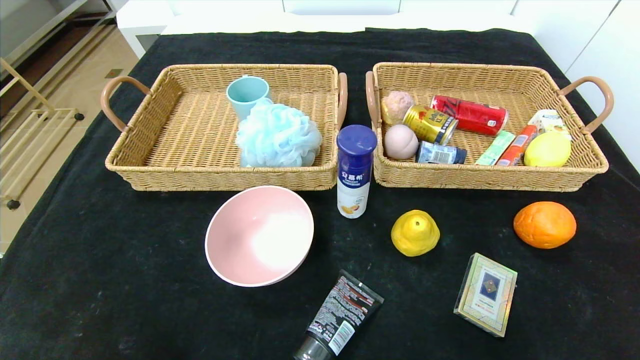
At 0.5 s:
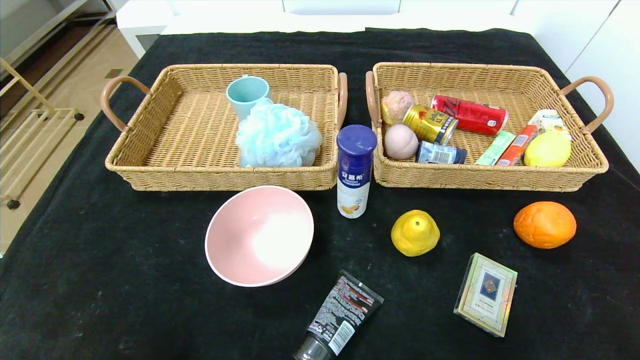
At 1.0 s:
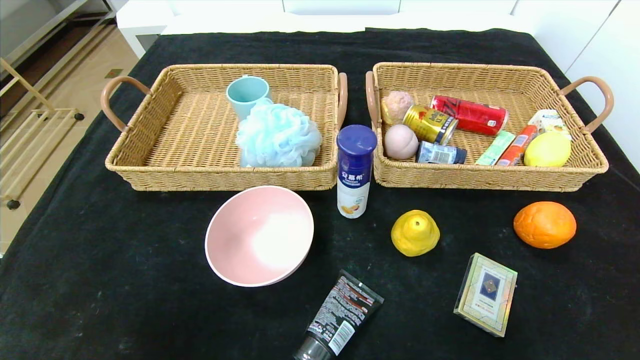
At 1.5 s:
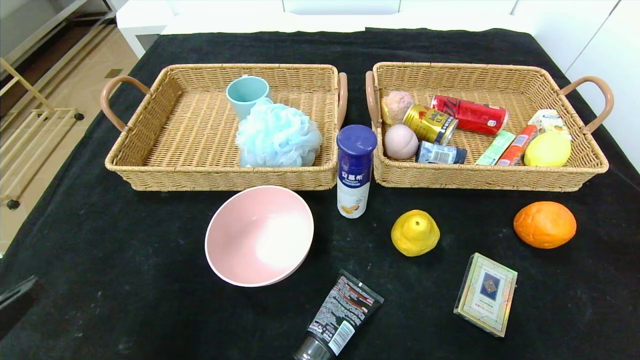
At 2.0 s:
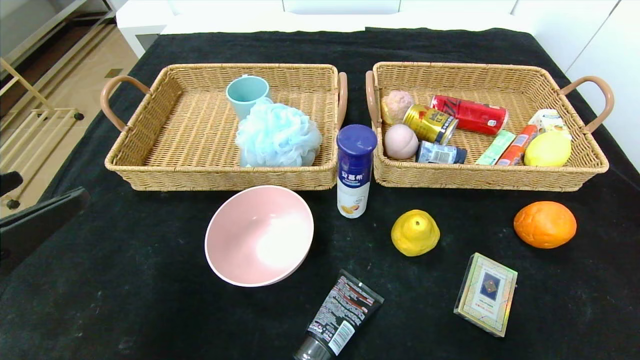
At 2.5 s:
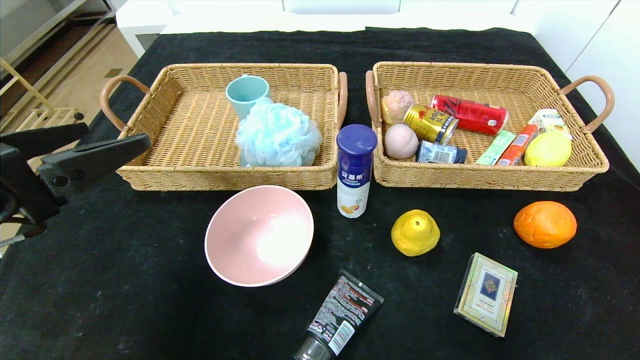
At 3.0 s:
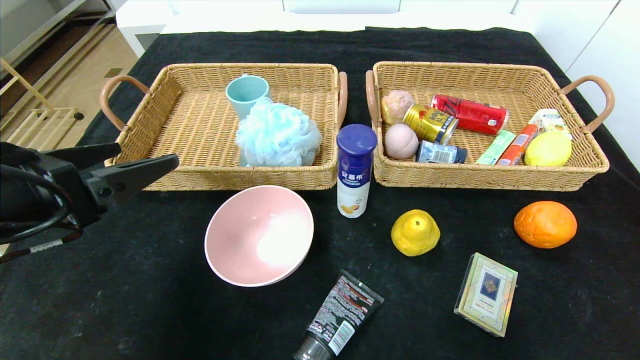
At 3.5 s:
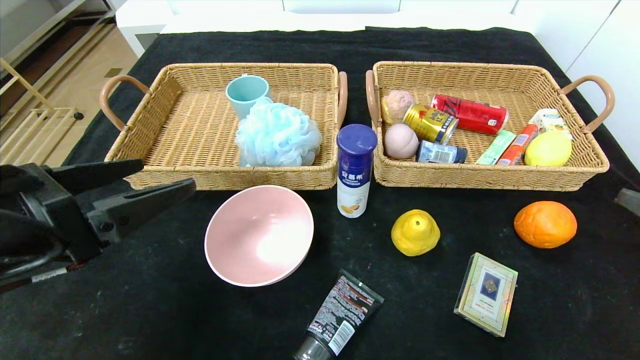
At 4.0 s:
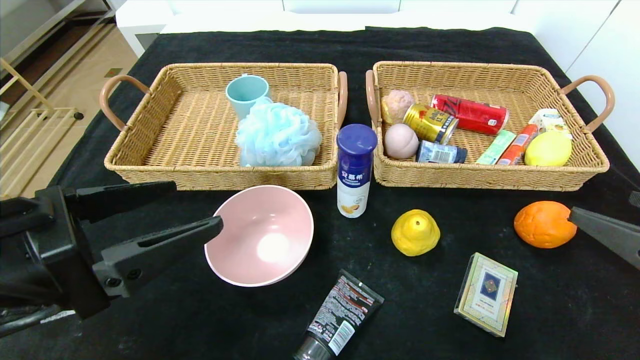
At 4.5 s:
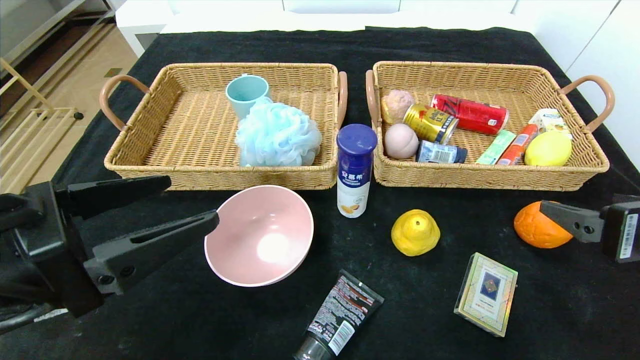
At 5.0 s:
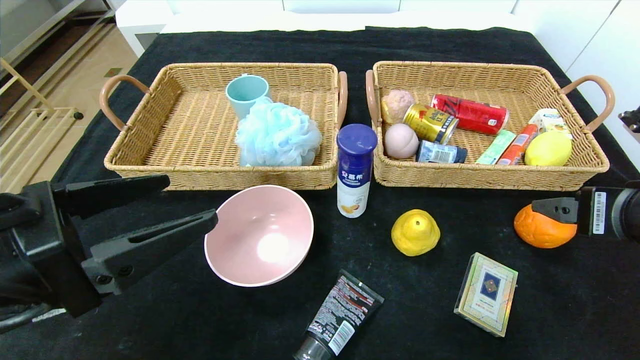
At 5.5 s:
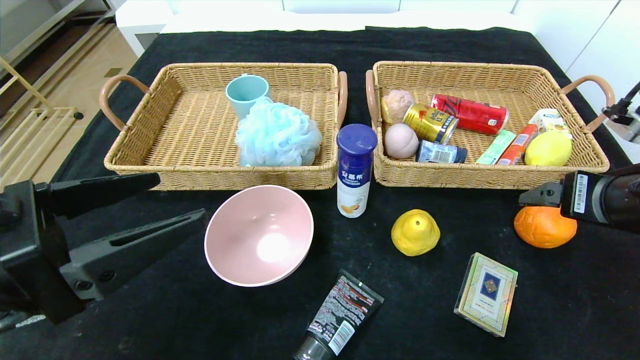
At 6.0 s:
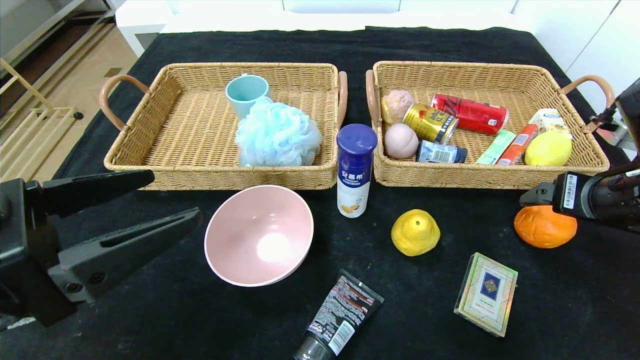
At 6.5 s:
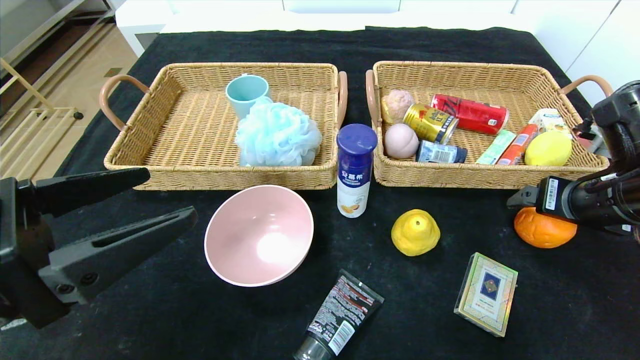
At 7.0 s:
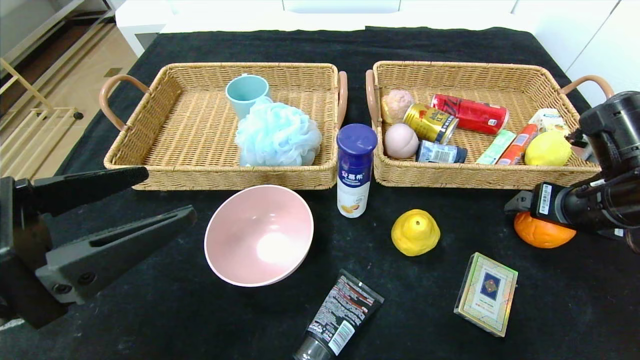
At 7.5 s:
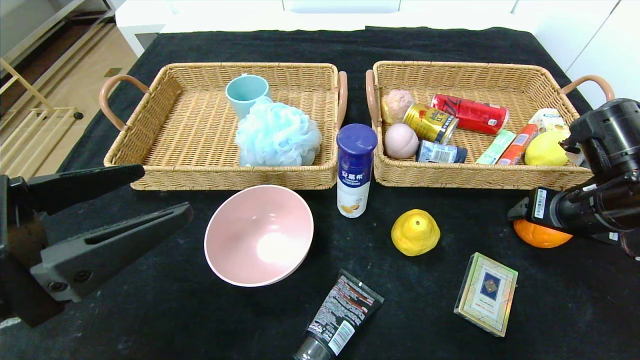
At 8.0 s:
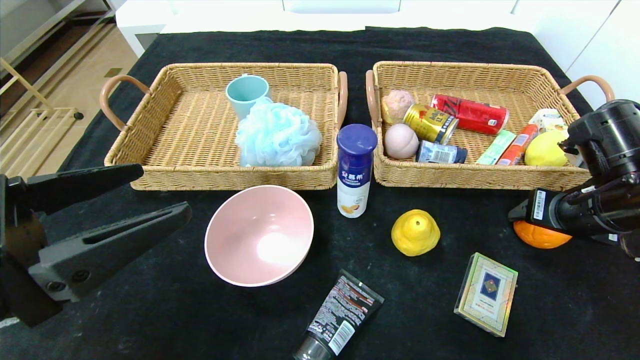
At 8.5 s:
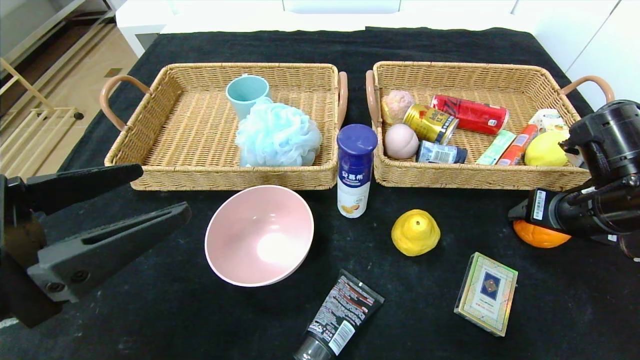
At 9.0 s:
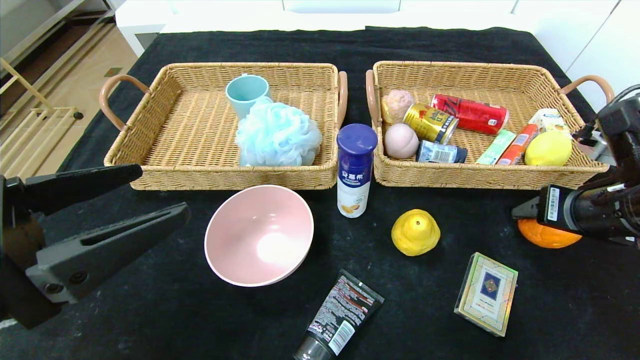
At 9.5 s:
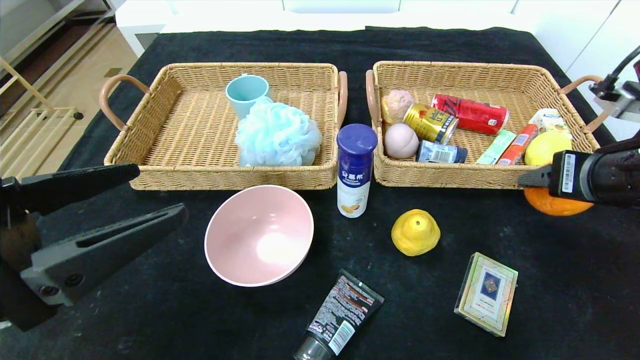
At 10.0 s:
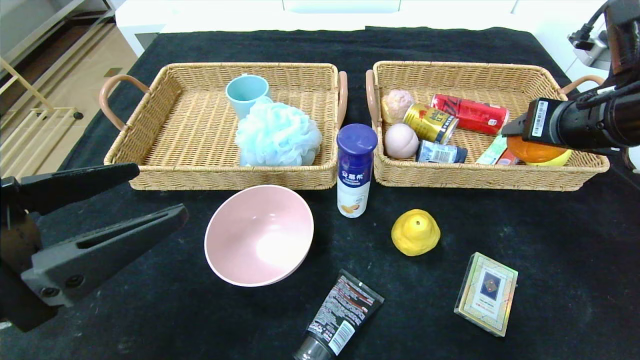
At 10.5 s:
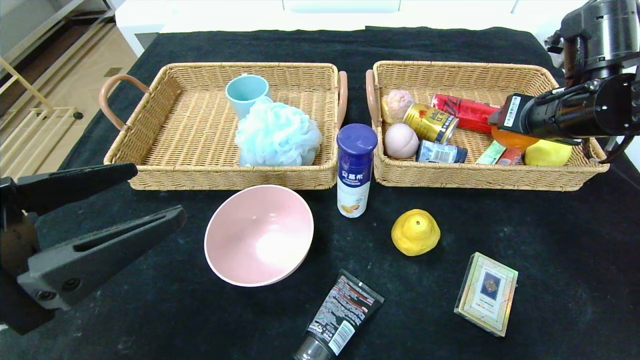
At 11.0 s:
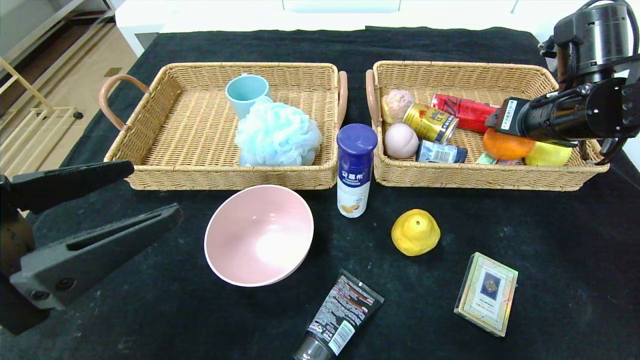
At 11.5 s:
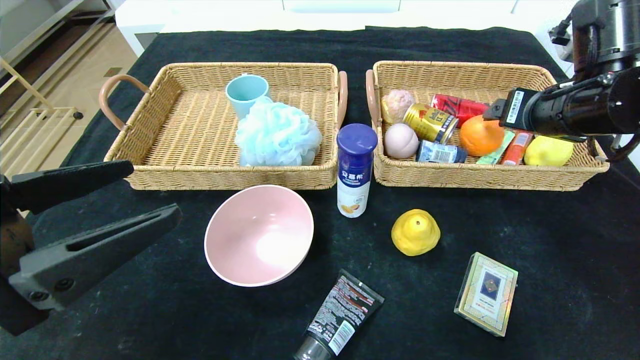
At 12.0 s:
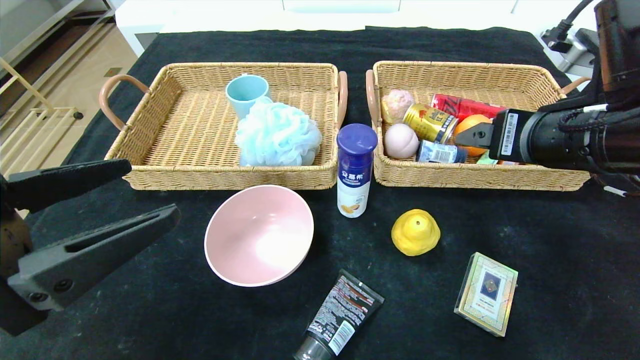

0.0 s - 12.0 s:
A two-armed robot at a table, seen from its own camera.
0.0 s - 2.0 s: Both grippers move upward and forward, about 15 cm.
2.0 s - 4.0 s: The left gripper moves to the right, about 5 cm. Meanwhile the right gripper heads to the left, covering roughly 5 cm.
4.0 s - 6.0 s: The right gripper is displaced forward by approximately 15 cm.
6.0 s - 8.0 s: The right gripper closes.
8.0 s - 10.0 s: The right gripper is displaced upward by approximately 10 cm.
10.0 s - 12.0 s: The right gripper heads to the left and backward, covering approximately 10 cm, and opens.

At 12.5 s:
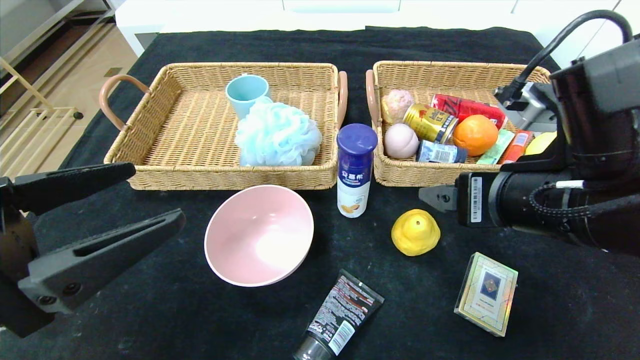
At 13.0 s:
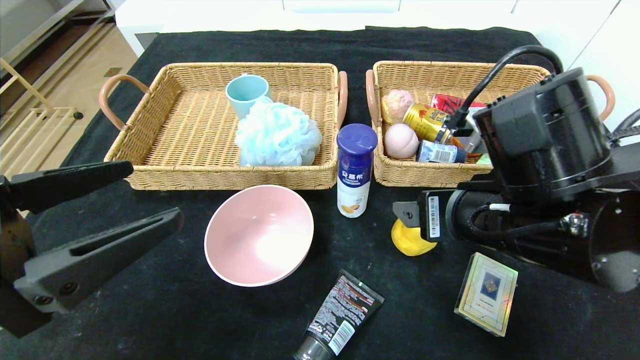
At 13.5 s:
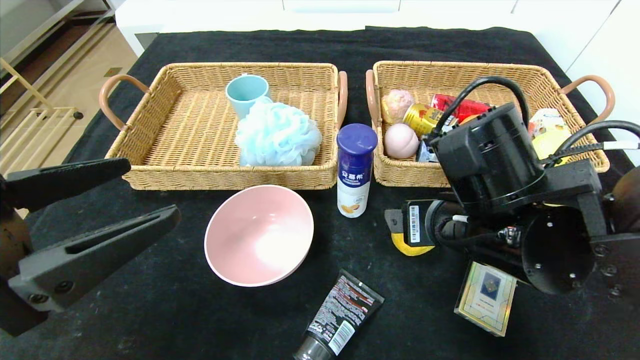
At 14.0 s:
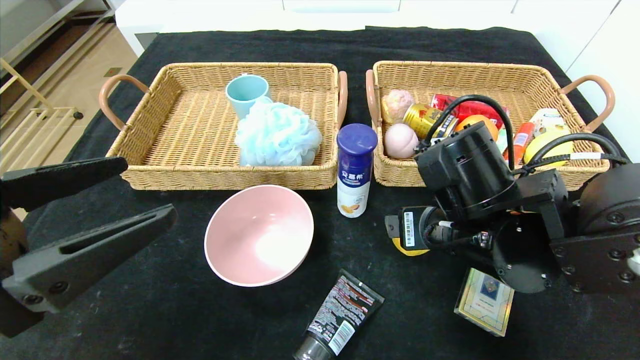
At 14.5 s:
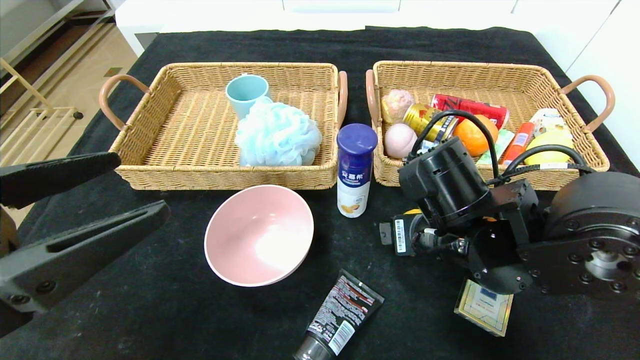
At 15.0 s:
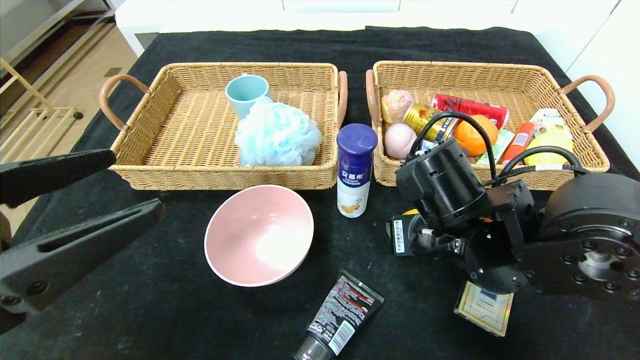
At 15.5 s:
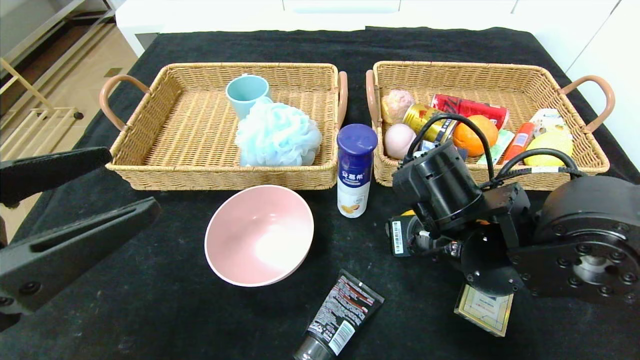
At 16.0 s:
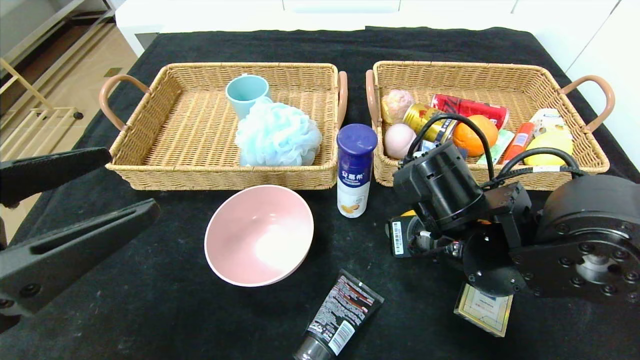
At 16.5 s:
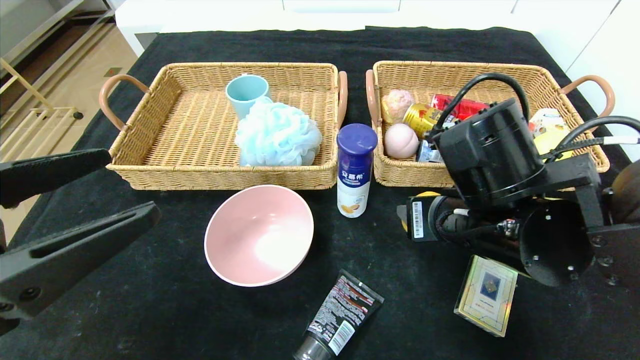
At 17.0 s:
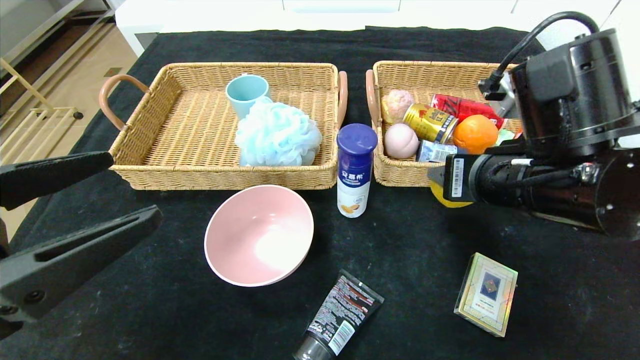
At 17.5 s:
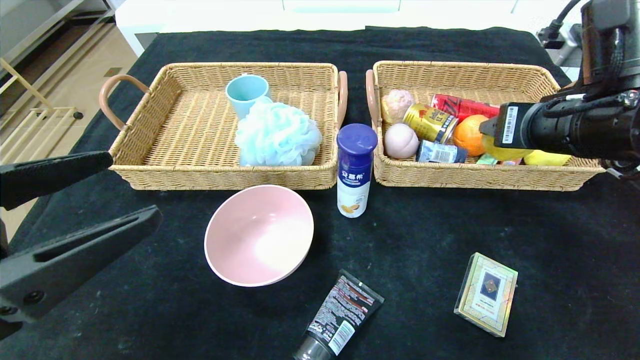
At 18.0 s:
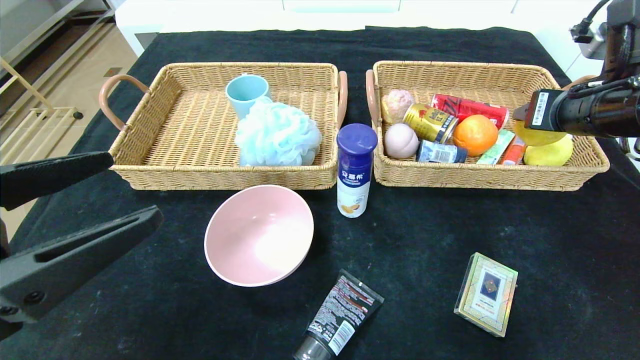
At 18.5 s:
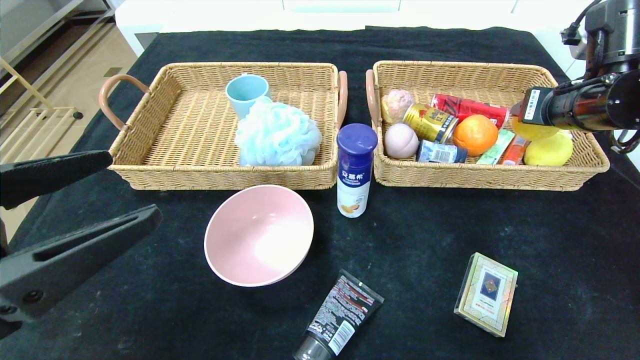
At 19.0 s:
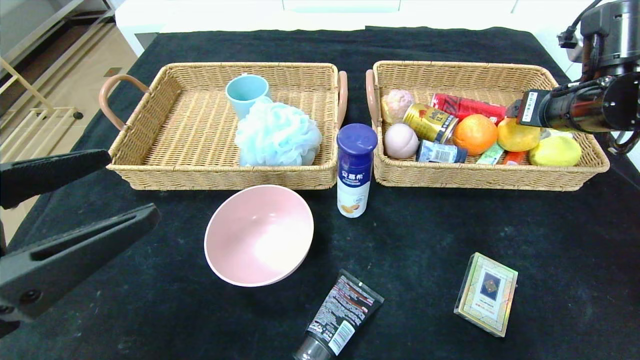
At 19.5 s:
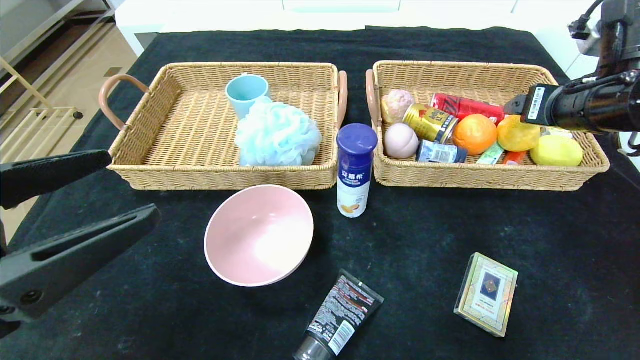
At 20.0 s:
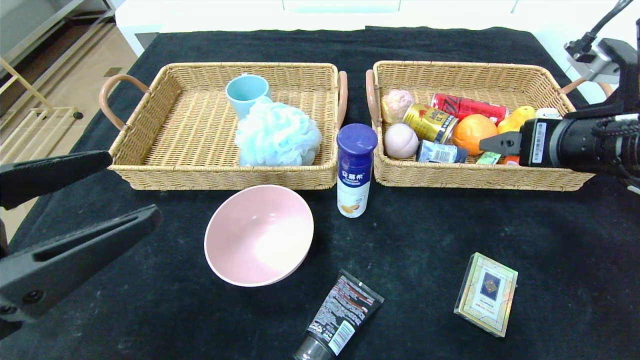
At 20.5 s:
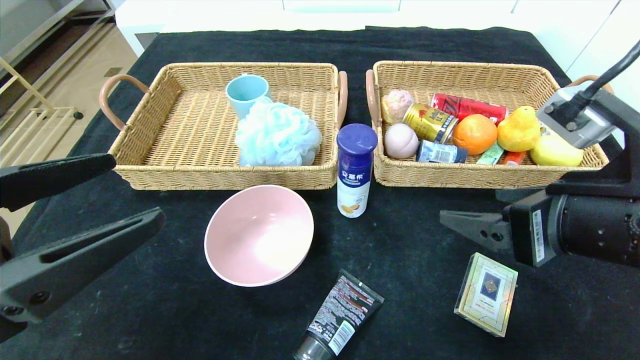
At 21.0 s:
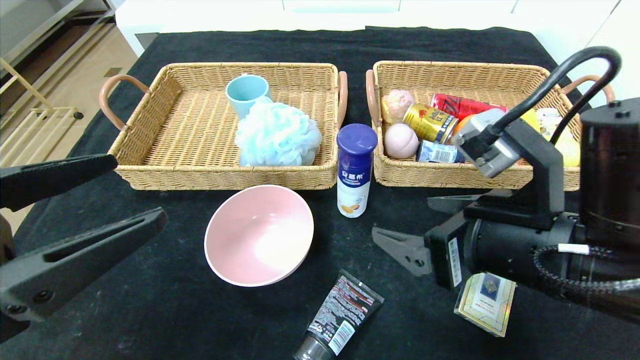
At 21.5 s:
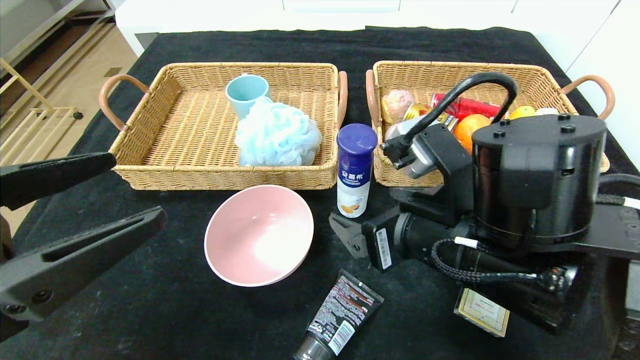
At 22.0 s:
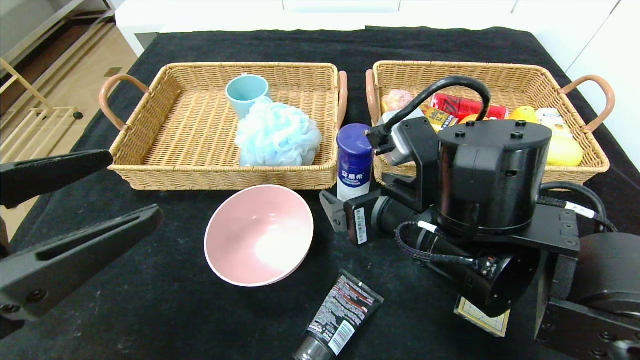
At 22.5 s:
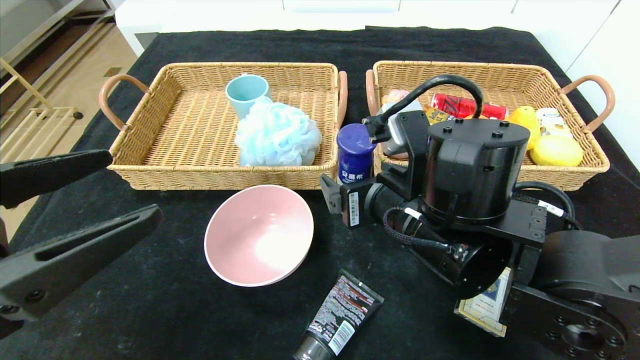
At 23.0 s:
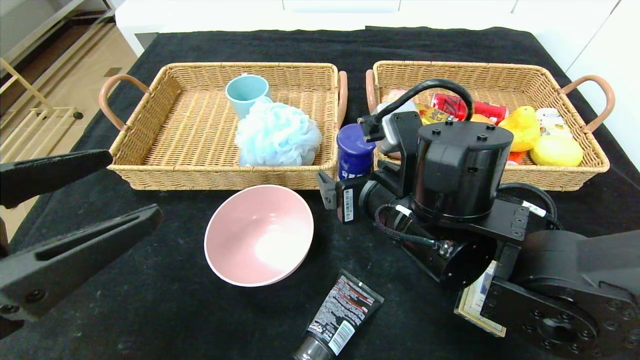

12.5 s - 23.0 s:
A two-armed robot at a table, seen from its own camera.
Step, 12.5 s - 20.0 s: Pick up the pear and put it in the right basket.
12.5 s - 14.5 s: The right gripper travels downward and to the left by roughly 10 cm.
14.5 s - 16.5 s: The right gripper closes.
16.5 s - 19.0 s: The right gripper heads to the right, forward and upward, covering roughly 20 cm, and opens up.
19.0 s - 21.0 s: The right gripper shifts some 20 cm backward and to the left.
21.0 s - 23.0 s: The right gripper travels to the left and forward by some 10 cm.
